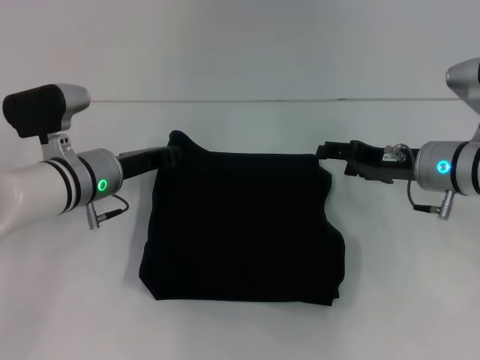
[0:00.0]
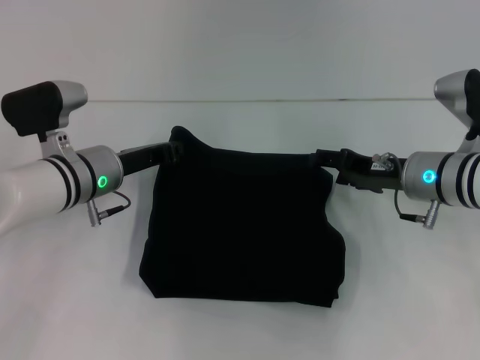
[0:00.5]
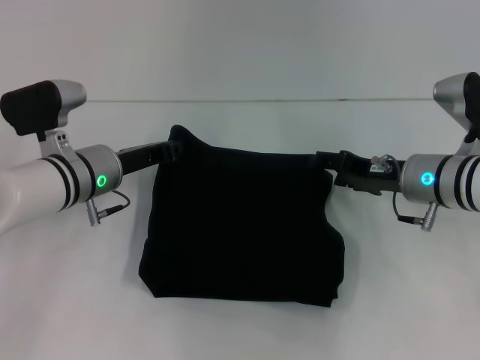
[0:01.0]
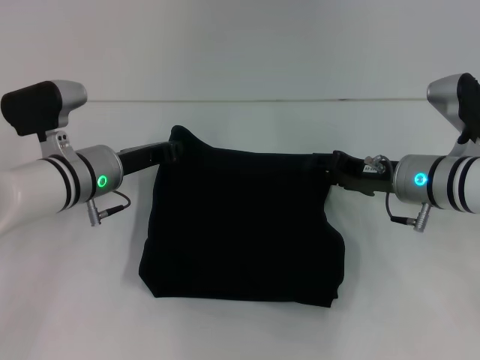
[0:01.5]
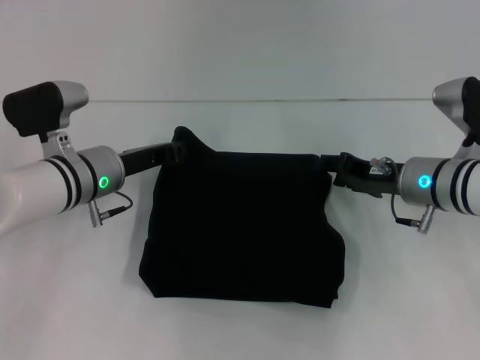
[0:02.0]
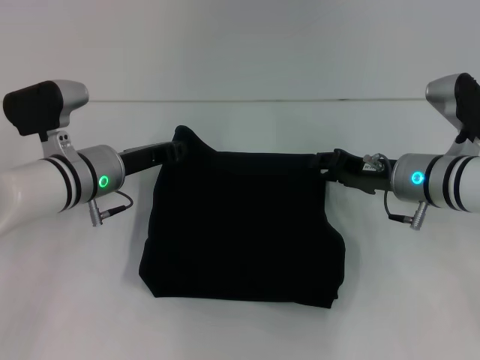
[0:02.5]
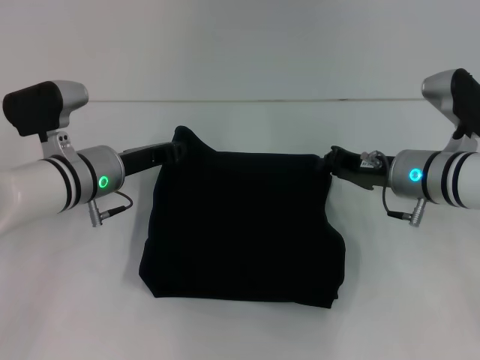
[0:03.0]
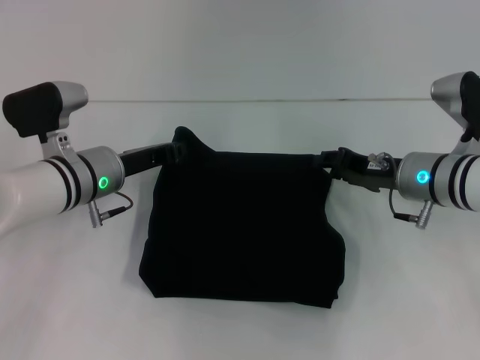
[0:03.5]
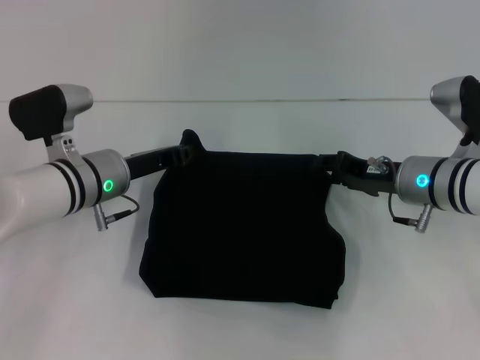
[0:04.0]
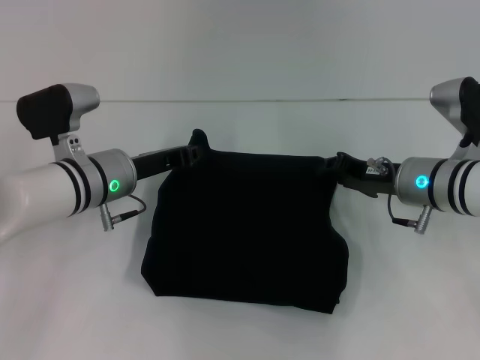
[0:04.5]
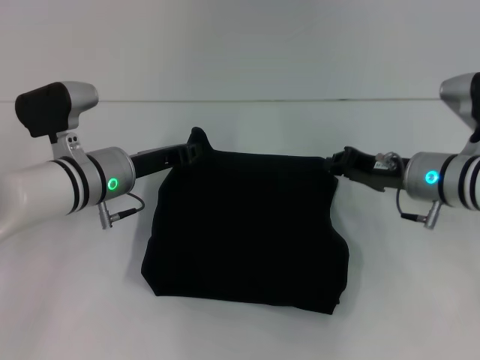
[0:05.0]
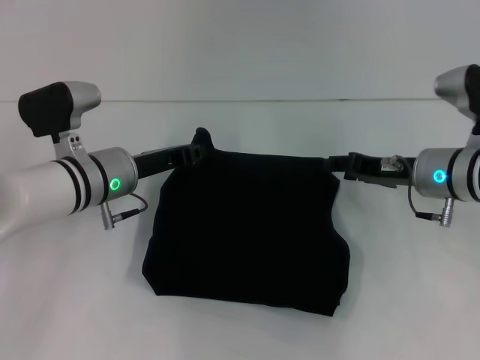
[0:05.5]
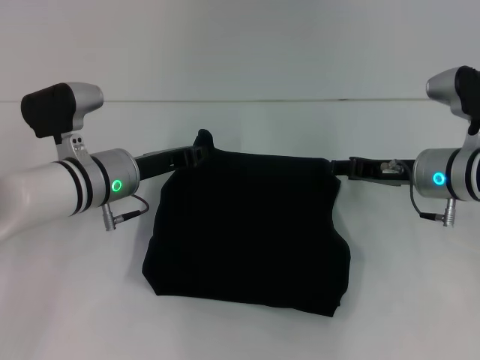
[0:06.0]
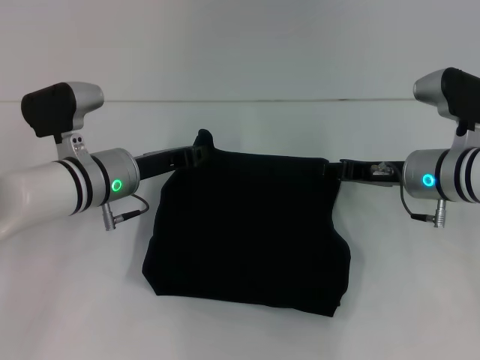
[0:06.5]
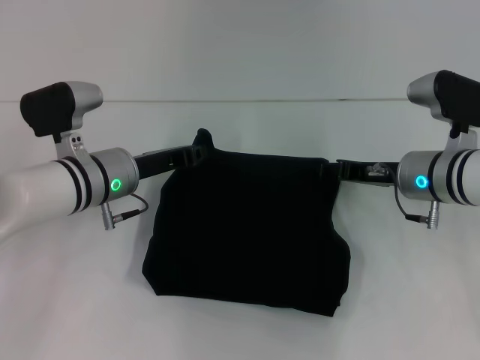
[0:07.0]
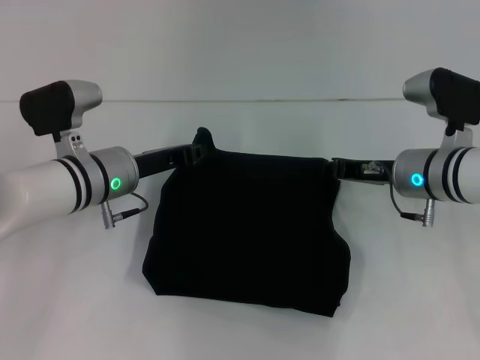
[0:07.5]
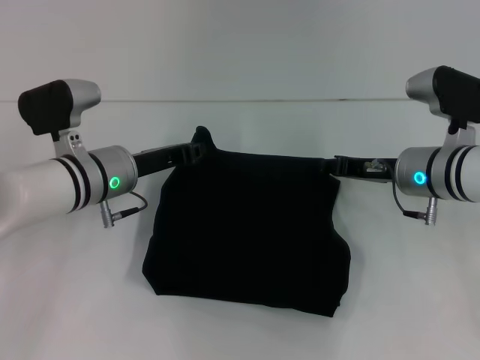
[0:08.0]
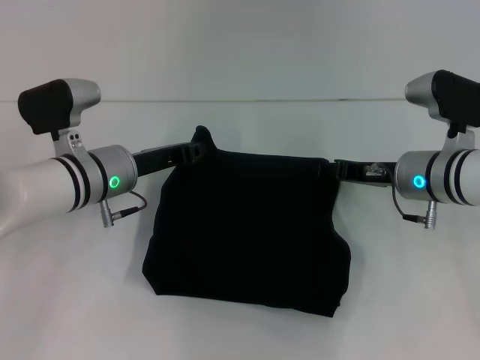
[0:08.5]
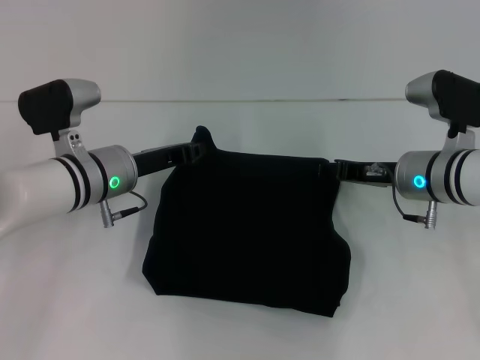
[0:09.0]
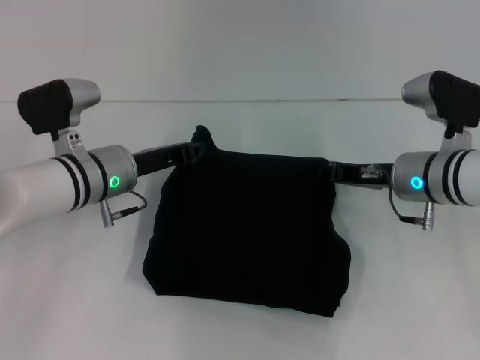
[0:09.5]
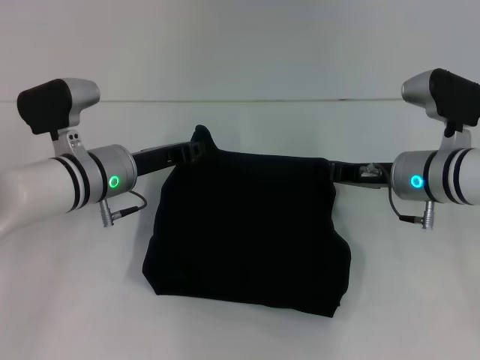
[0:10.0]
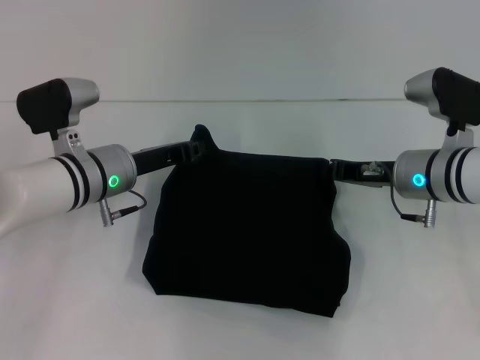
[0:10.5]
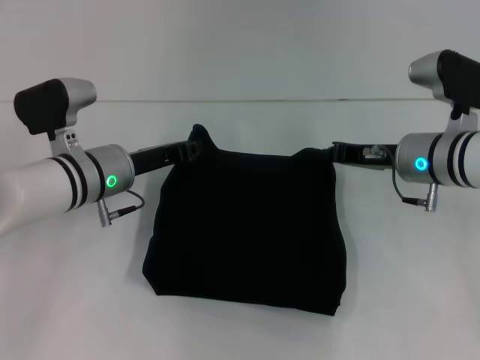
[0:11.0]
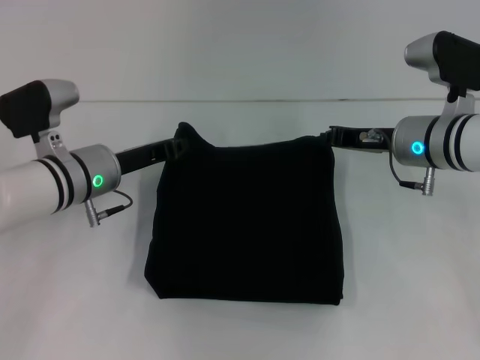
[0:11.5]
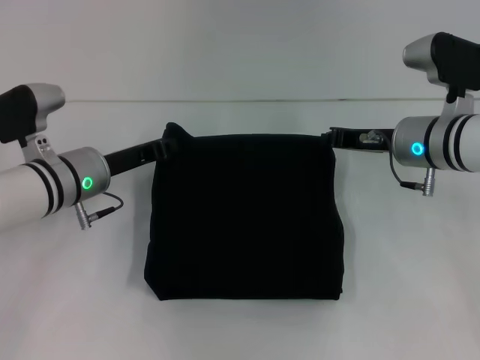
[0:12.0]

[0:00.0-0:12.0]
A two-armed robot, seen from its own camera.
0:00.0 to 0:02.0: The grippers move only a little.
0:02.0 to 0:04.0: The right gripper closes, then reopens.
0:04.0 to 0:06.0: The right gripper closes, then reopens.
0:06.0 to 0:08.0: The right gripper closes.
0:08.0 to 0:10.0: The right gripper opens, then closes again.
0:10.0 to 0:12.0: The grippers make only small movements.

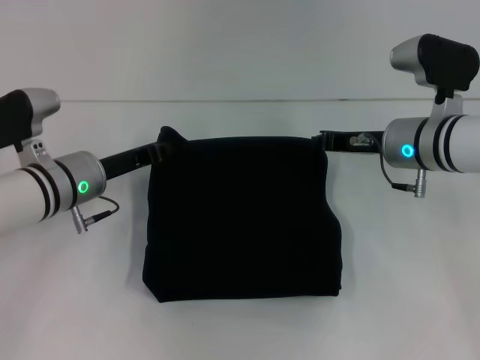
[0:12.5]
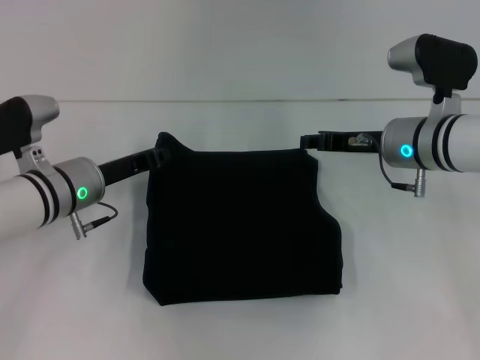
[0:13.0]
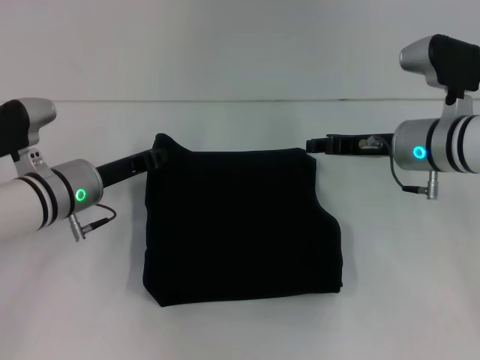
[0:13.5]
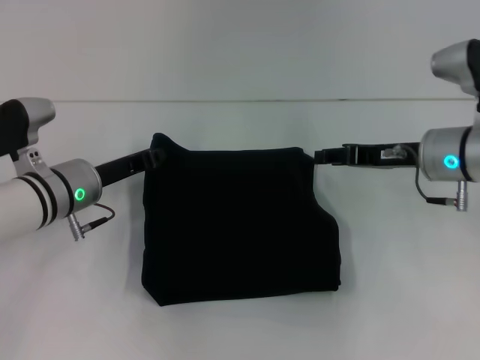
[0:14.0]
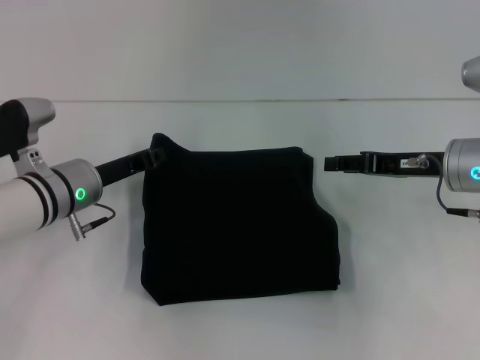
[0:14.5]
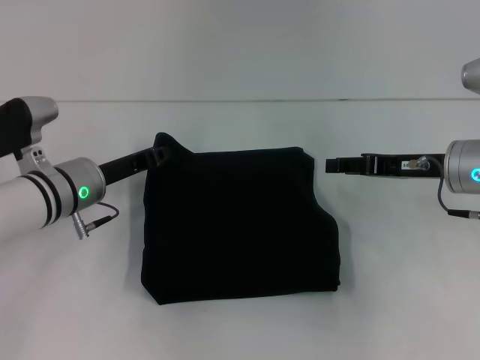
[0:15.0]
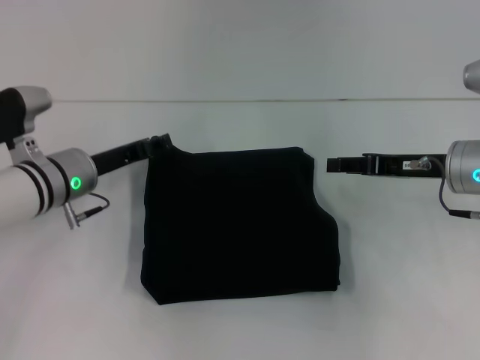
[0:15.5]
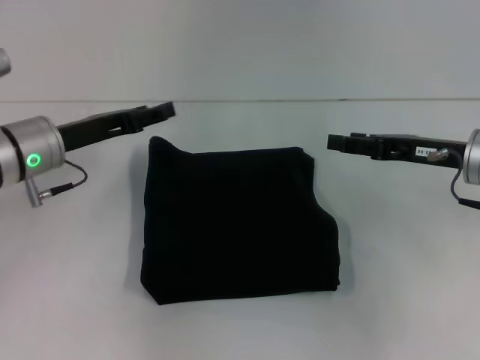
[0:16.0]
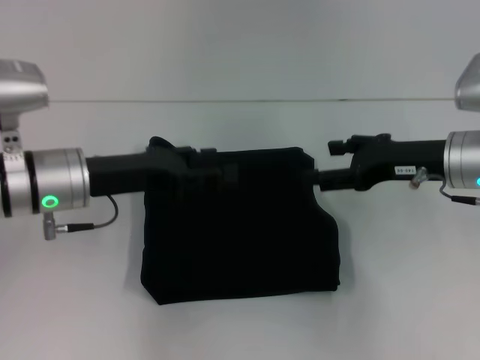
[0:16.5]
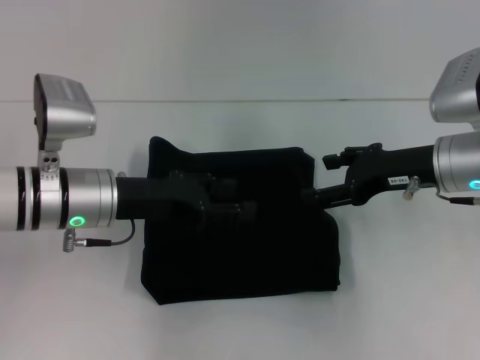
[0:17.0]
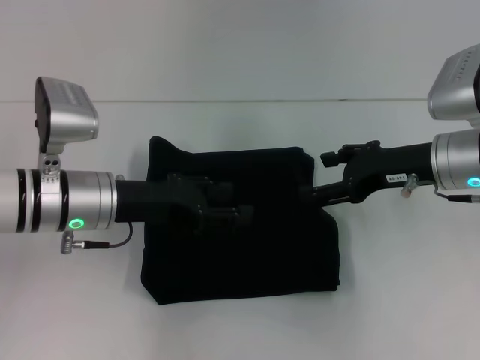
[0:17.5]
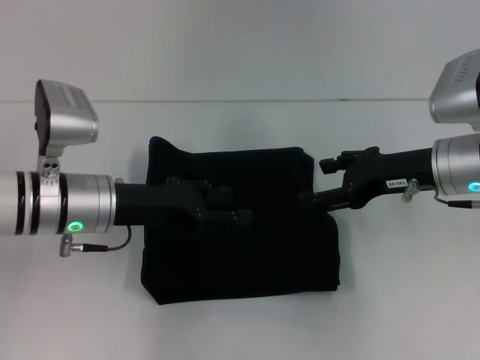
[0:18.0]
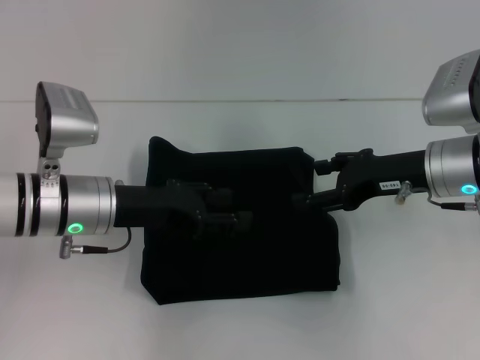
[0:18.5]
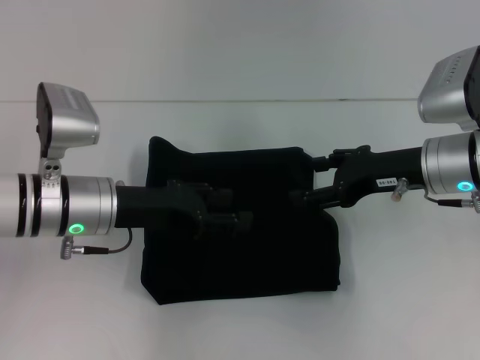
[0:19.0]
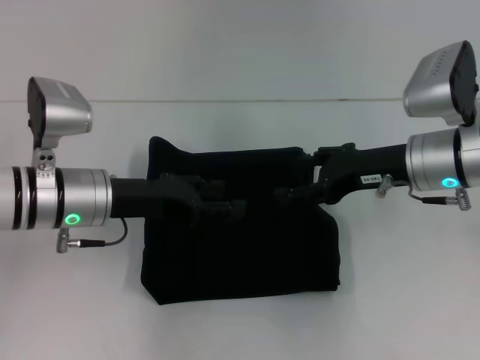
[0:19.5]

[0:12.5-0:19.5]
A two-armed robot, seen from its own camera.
0:12.5 to 0:14.5: The right gripper shifts roughly 5 cm to the right, and opens.
0:14.5 to 0:16.0: The left gripper moves upward, roughly 5 cm, and opens.
0:16.0 to 0:17.5: The left gripper shifts roughly 5 cm to the right.
0:17.5 to 0:19.5: The grippers move only a little.

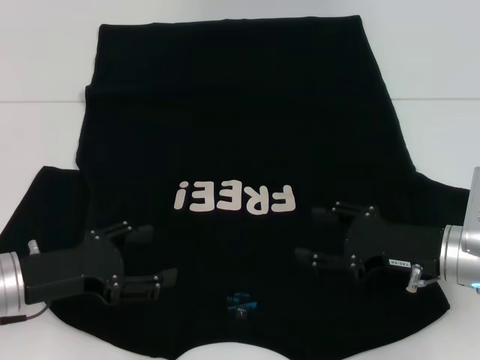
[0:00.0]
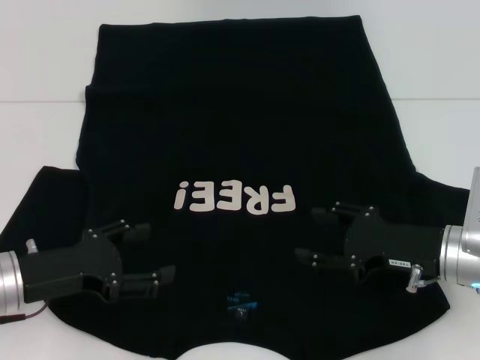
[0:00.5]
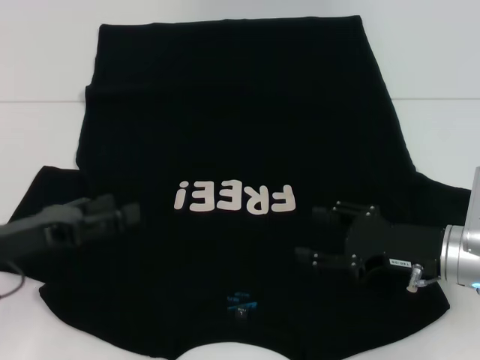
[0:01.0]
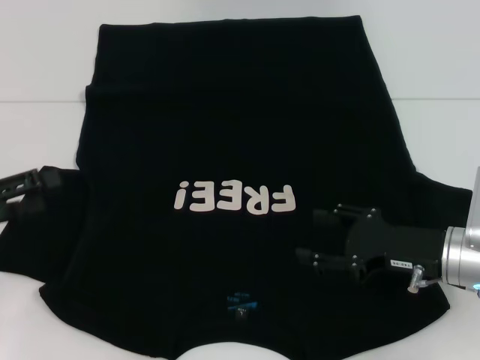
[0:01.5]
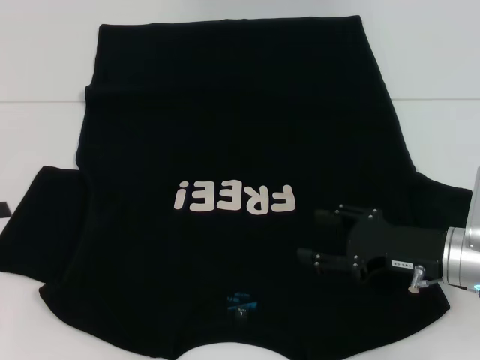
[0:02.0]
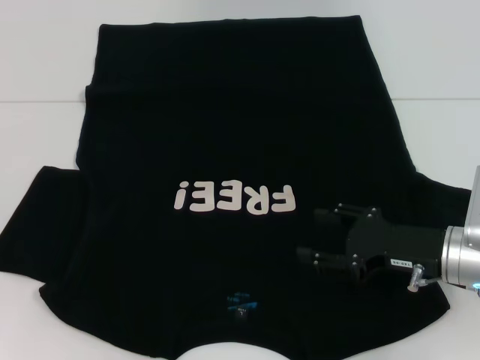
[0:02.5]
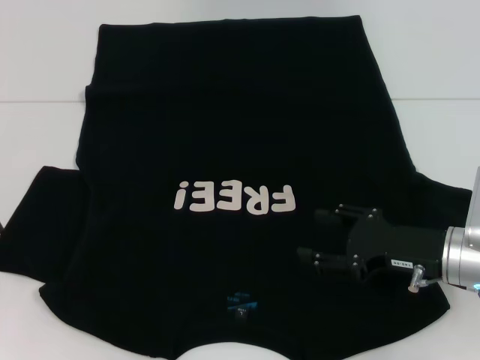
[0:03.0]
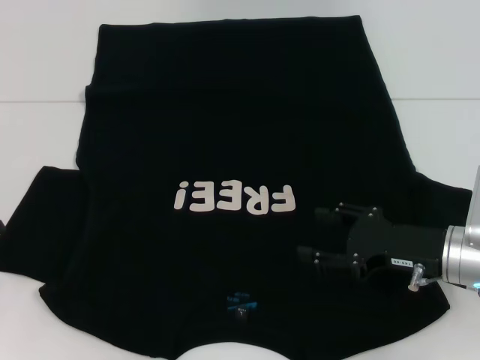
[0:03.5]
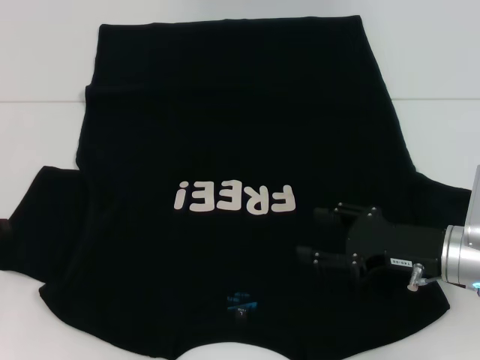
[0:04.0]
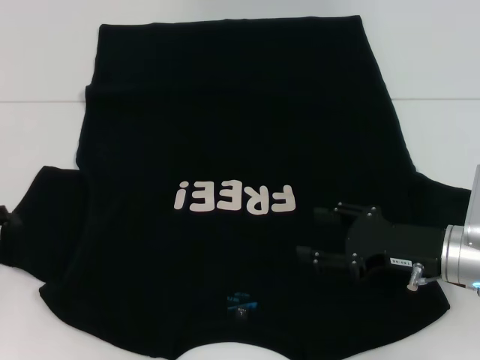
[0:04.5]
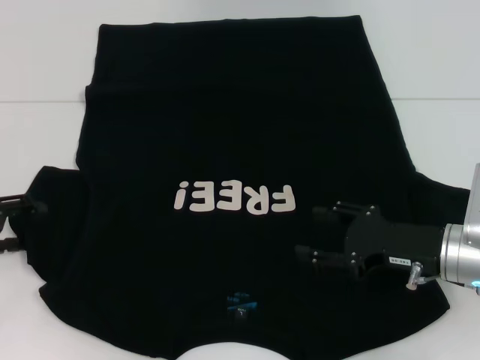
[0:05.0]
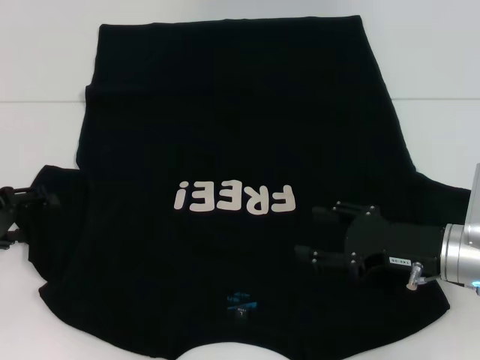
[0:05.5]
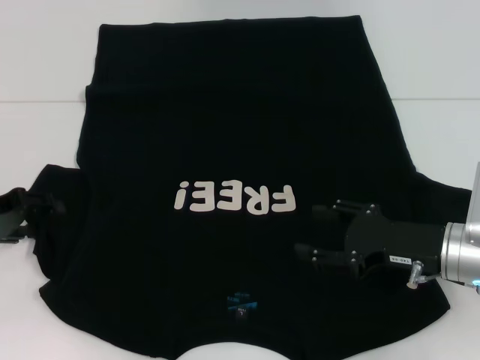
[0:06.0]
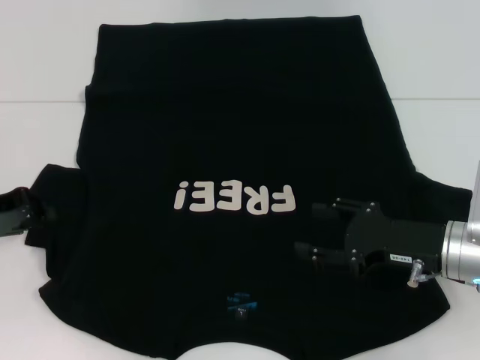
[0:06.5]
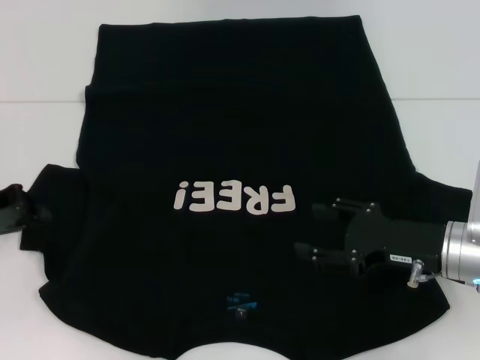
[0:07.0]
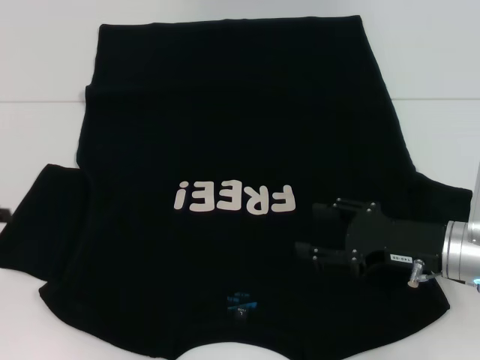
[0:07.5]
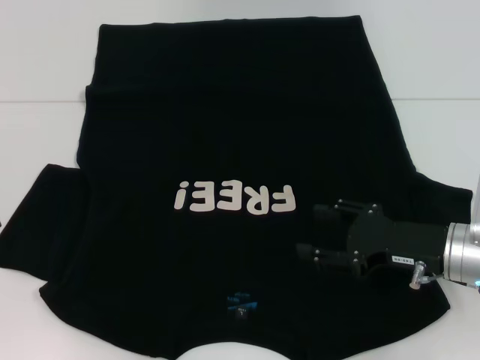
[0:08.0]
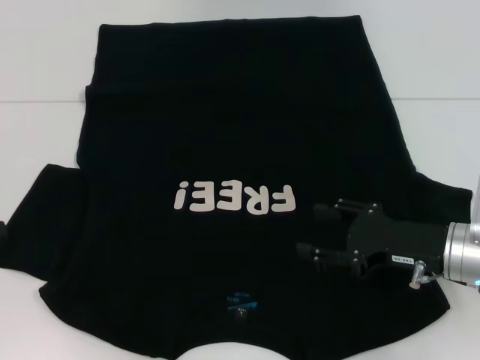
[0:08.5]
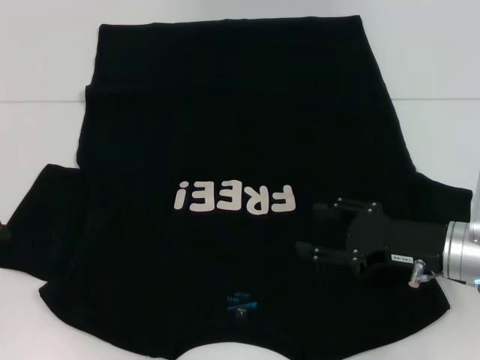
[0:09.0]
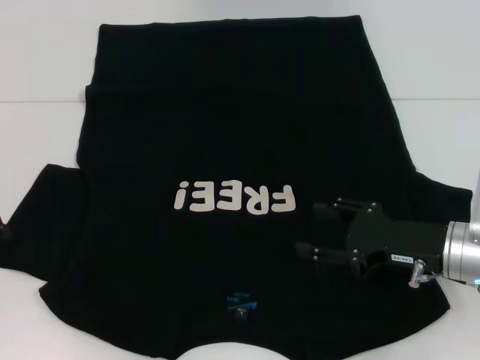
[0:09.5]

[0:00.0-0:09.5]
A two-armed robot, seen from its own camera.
0:00.0 to 0:02.0: The left gripper goes approximately 15 cm to the left and upward.
0:02.0 to 0:04.0: The grippers make only small movements.
0:04.0 to 0:05.5: The left gripper ends up some 5 cm from where it was.
0:05.5 to 0:07.5: The left gripper closes.
